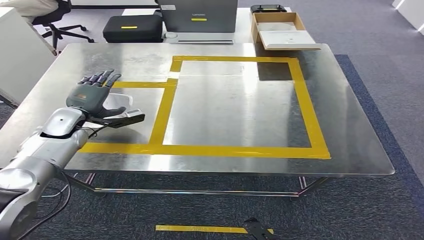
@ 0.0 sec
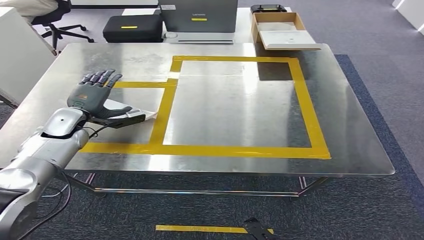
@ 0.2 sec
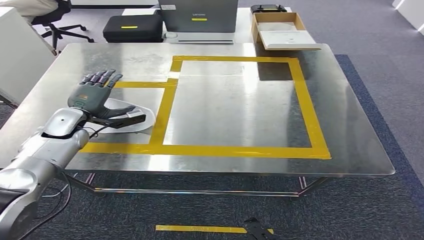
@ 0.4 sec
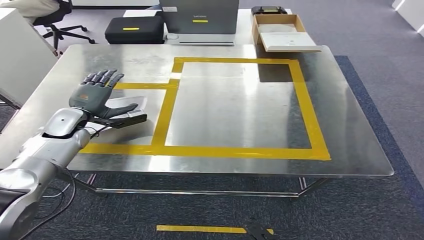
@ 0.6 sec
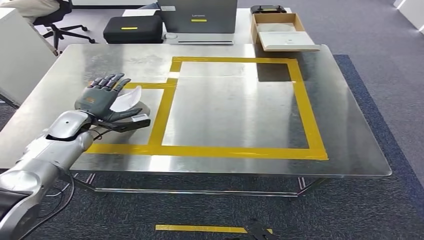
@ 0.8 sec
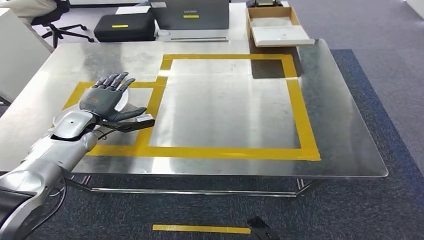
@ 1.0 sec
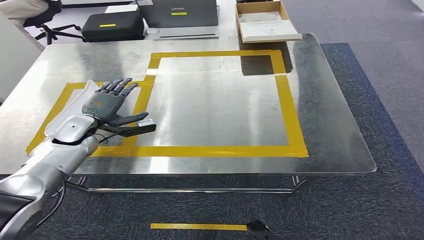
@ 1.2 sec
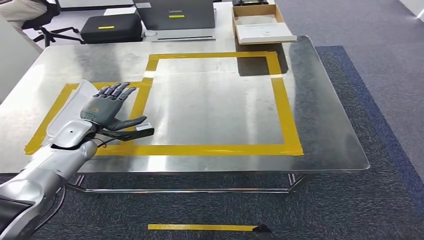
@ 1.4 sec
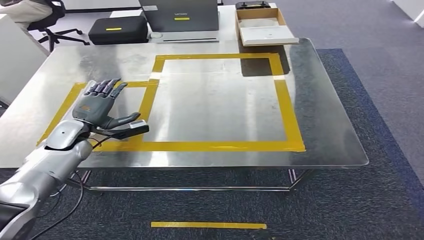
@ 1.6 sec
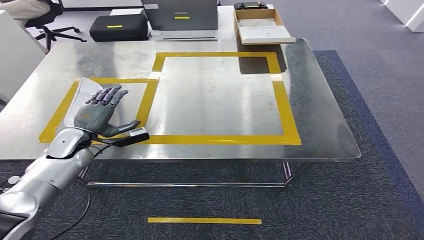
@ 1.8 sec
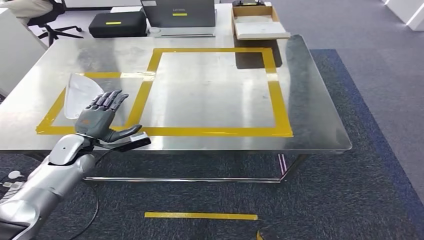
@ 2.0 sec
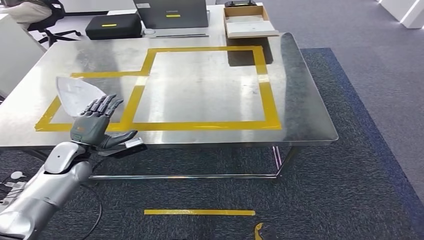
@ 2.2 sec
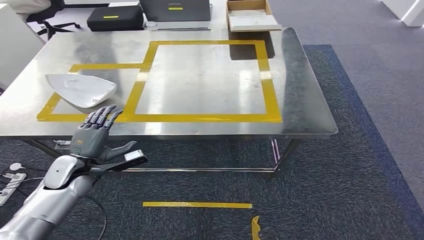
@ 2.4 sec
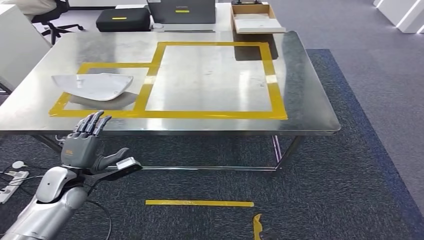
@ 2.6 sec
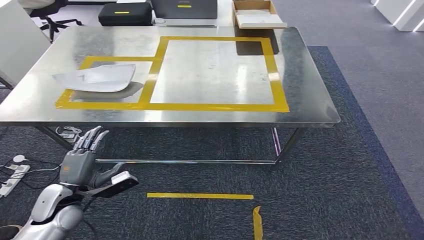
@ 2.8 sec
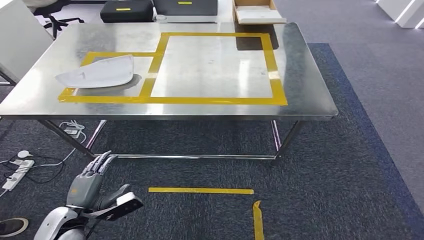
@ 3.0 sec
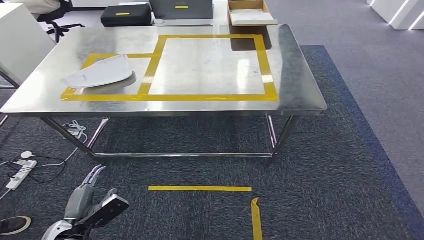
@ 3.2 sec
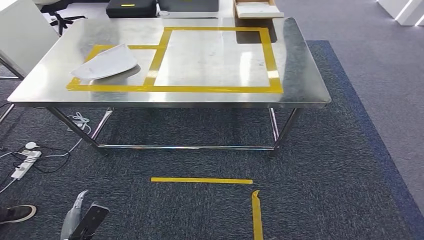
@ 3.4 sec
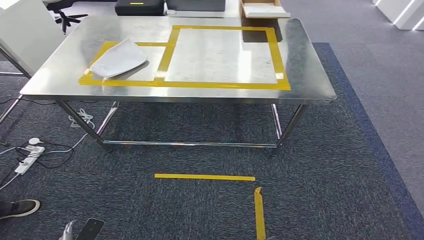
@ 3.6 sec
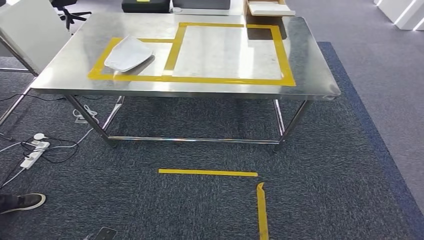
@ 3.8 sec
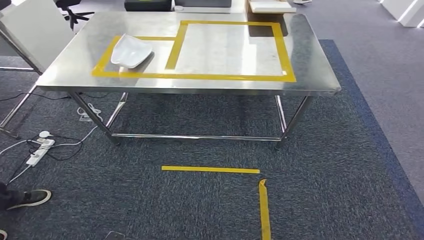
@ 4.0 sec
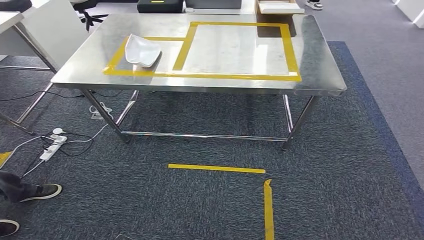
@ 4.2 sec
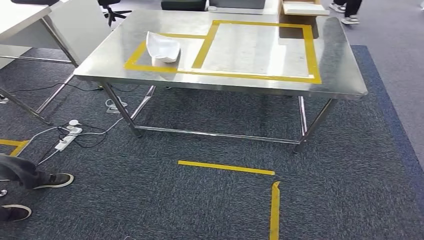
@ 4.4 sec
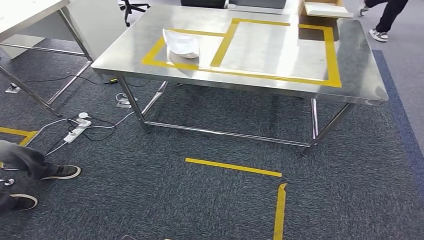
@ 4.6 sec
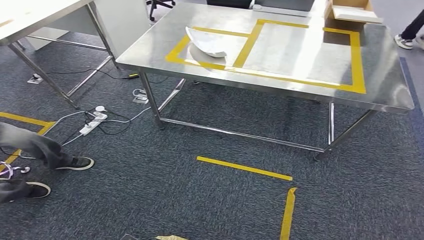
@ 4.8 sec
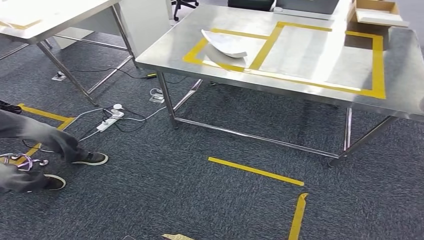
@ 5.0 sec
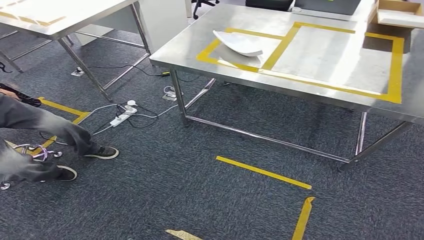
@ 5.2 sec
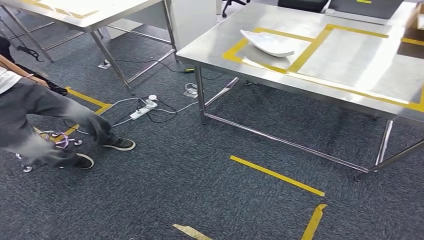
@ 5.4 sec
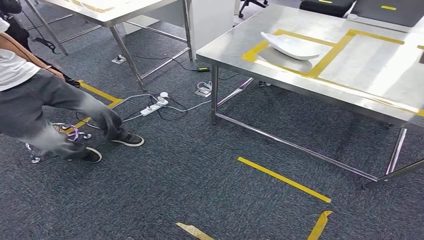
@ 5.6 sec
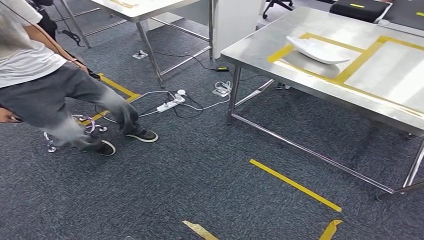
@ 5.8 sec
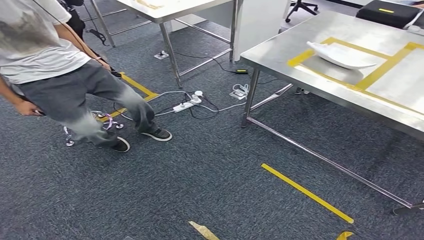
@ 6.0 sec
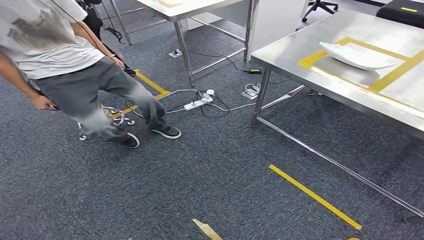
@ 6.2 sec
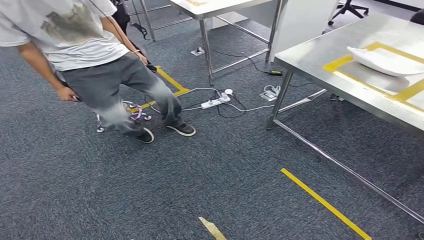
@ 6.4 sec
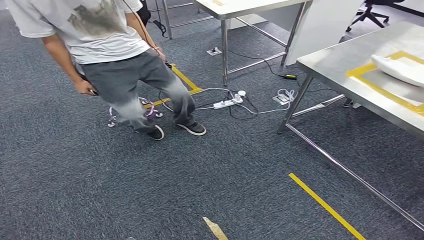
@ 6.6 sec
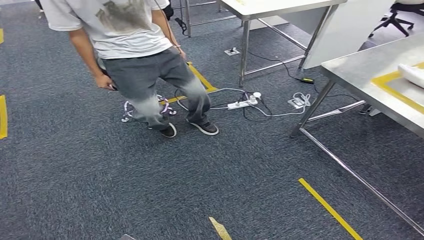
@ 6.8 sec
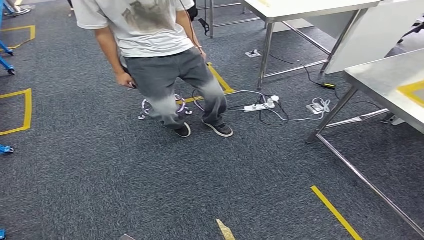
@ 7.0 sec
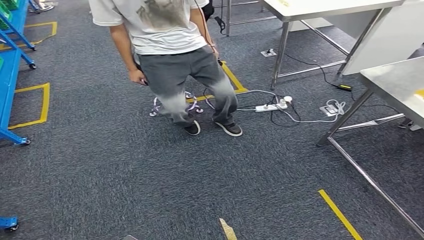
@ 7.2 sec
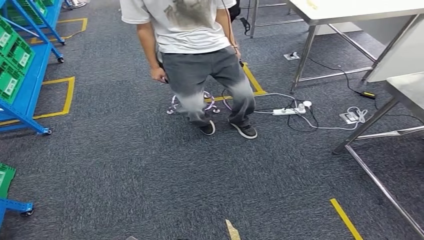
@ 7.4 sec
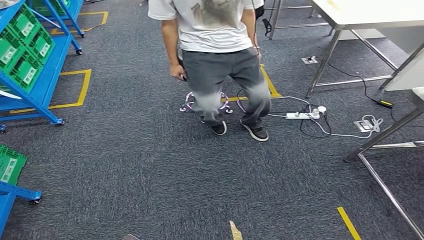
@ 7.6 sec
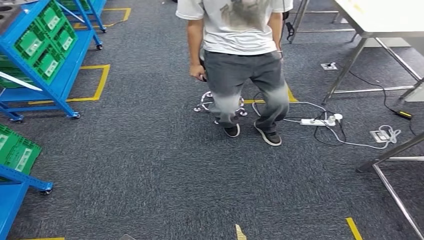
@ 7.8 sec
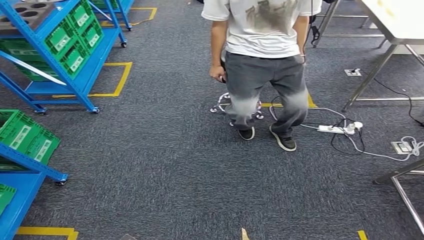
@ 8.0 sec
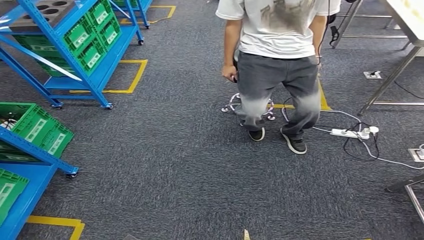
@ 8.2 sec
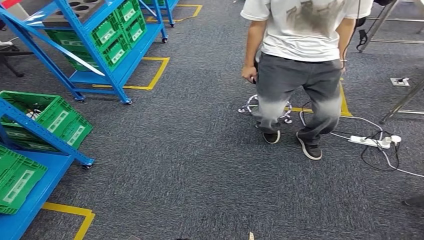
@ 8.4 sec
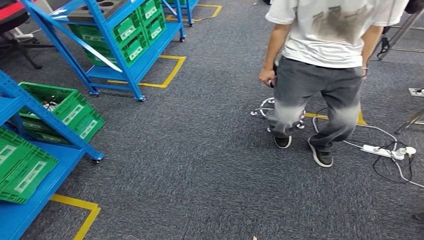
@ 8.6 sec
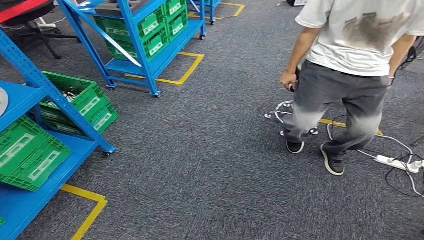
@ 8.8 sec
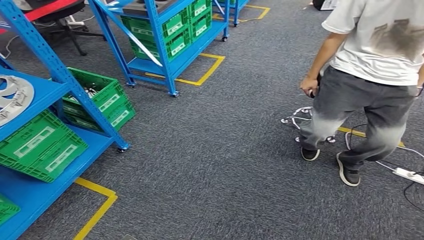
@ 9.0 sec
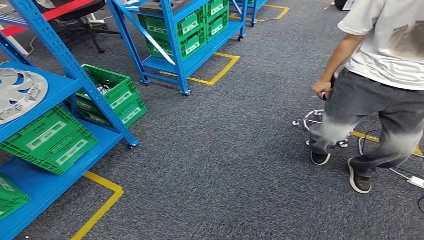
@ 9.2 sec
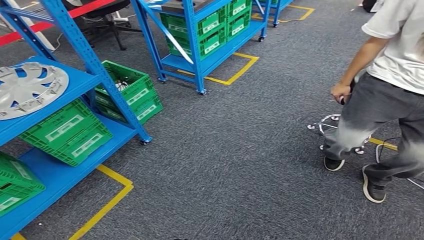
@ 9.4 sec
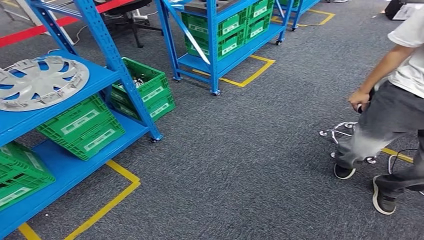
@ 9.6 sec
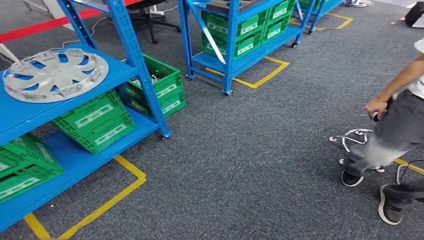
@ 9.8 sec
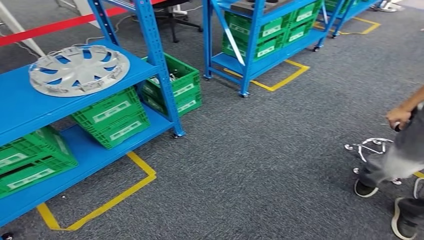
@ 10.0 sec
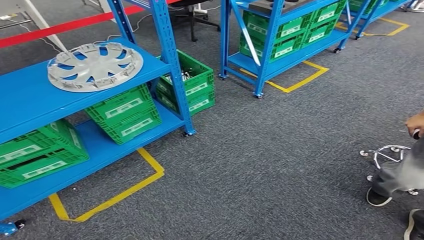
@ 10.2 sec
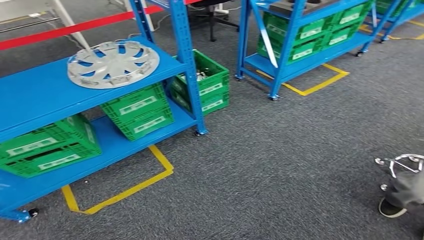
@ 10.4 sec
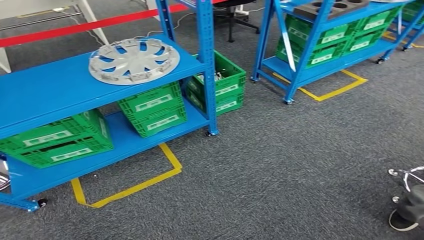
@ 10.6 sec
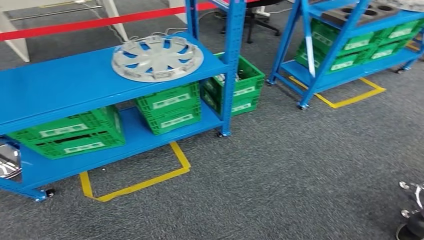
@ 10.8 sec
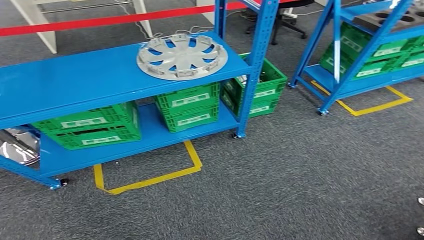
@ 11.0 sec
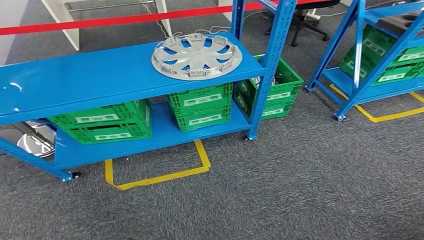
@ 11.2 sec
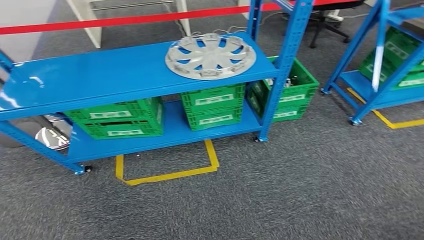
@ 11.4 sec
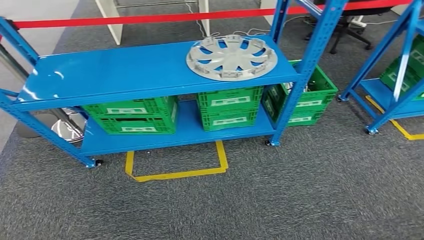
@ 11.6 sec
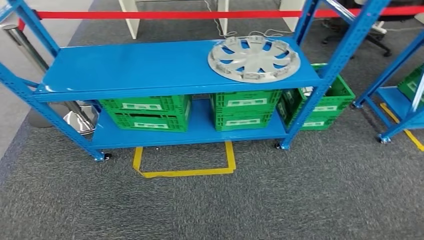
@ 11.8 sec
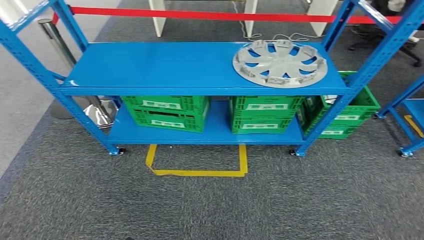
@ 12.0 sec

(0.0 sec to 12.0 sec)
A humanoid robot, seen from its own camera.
Step, 0.0 sec - 4.6 sec: Insert the small parts into the corresponding holes on the workbench.

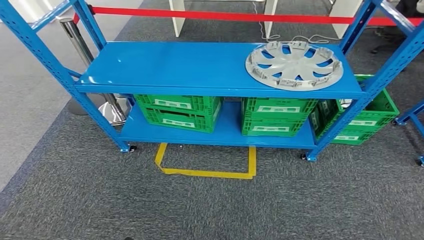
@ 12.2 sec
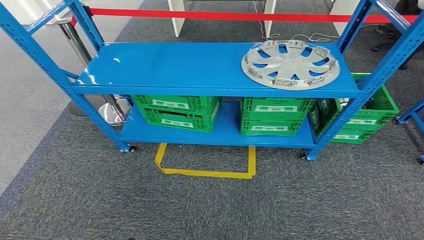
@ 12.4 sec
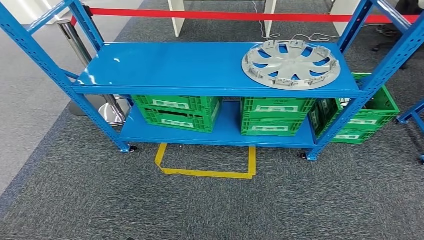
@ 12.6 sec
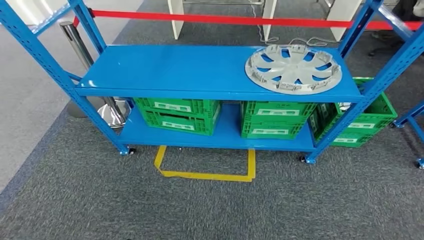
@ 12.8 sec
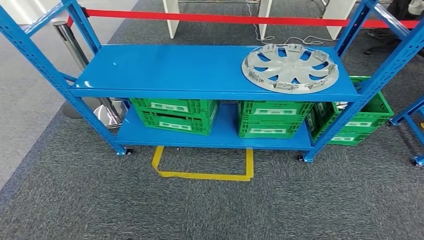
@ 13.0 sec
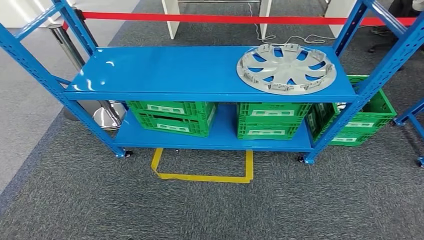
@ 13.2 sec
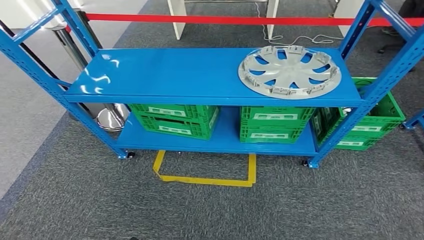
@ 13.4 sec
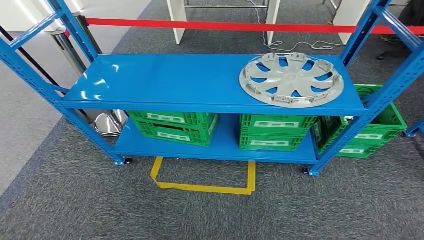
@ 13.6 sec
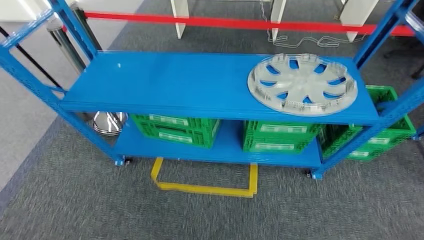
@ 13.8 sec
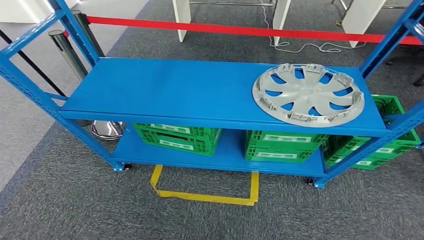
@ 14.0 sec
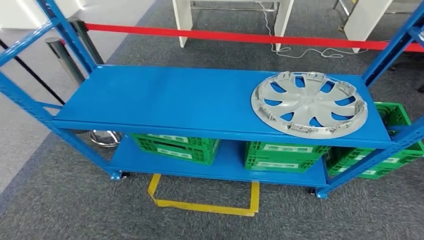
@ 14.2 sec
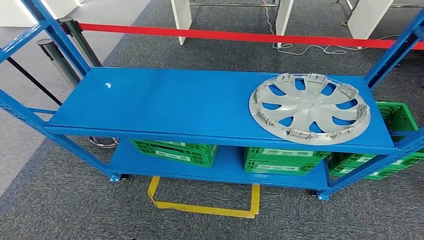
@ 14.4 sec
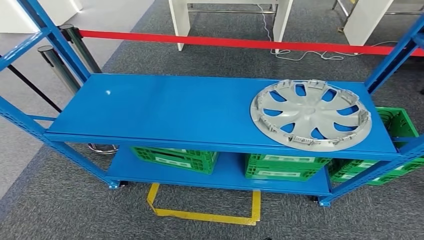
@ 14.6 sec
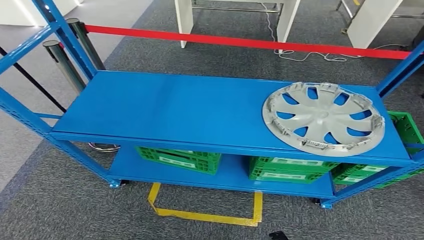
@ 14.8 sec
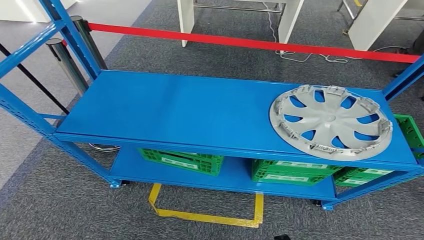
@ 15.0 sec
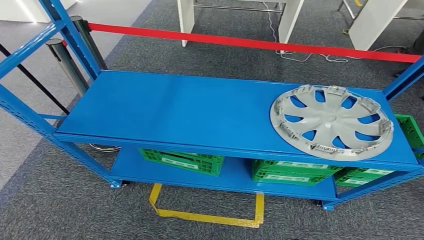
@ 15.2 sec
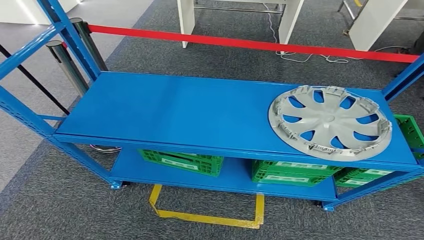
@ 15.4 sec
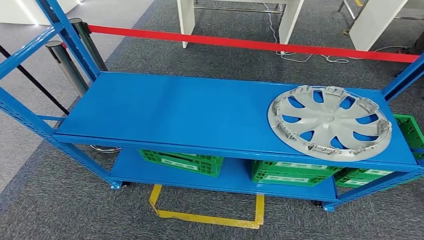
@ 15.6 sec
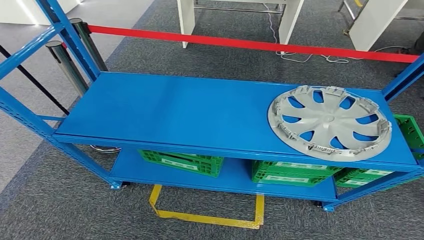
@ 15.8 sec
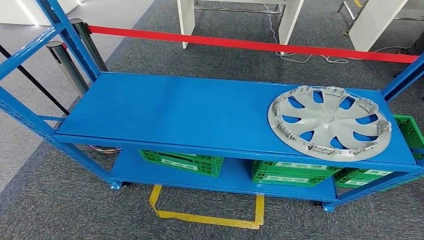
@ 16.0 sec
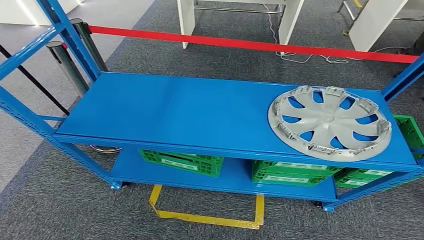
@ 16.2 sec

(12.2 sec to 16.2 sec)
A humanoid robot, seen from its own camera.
Step, 12.2 sec - 16.0 sec: Move to the initial position of the workbench.
14.8 sec - 16.2 sec: The right hand shifts about 10 cm backward and to the right.
